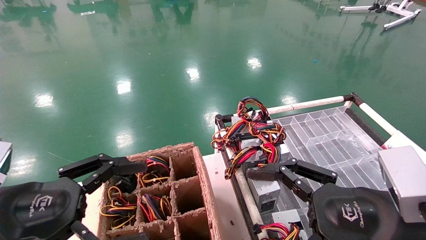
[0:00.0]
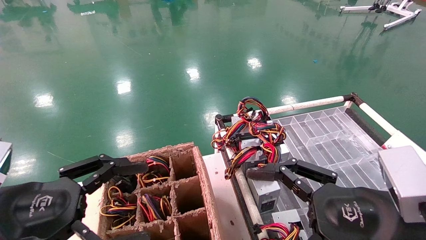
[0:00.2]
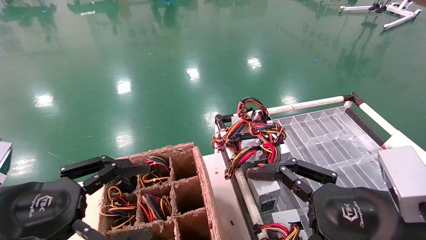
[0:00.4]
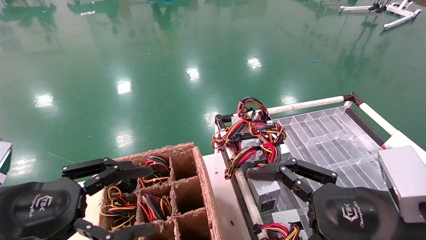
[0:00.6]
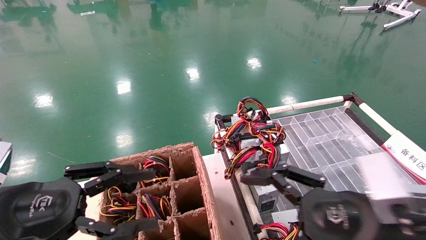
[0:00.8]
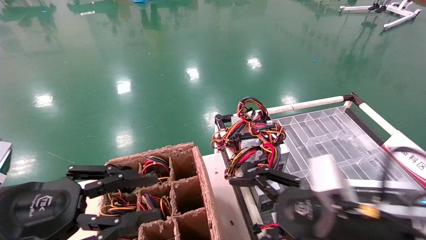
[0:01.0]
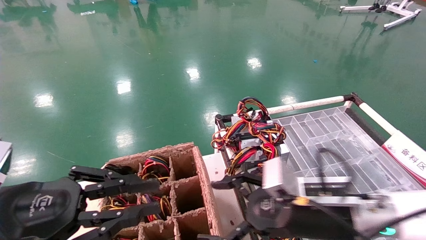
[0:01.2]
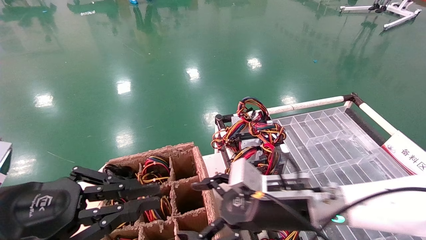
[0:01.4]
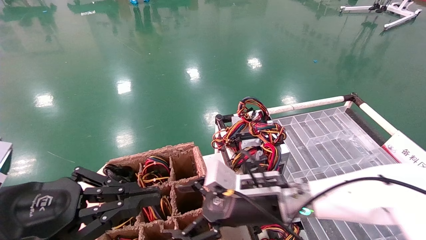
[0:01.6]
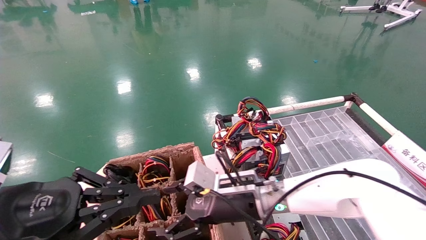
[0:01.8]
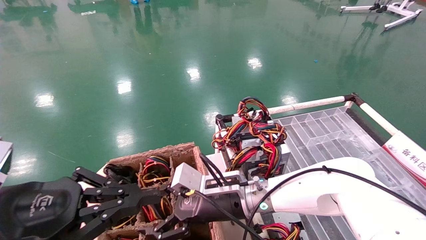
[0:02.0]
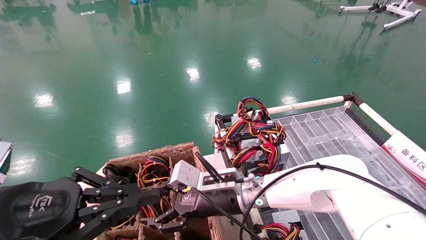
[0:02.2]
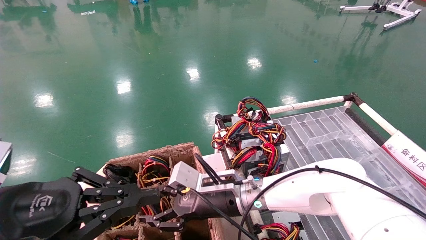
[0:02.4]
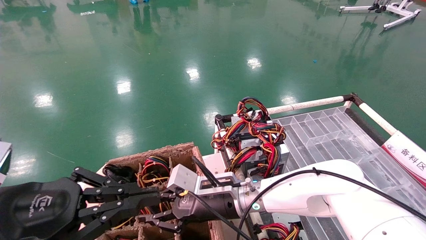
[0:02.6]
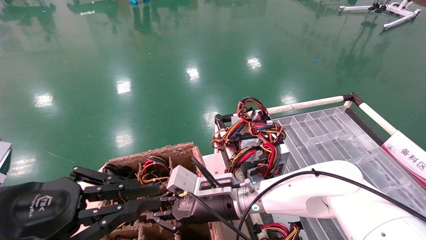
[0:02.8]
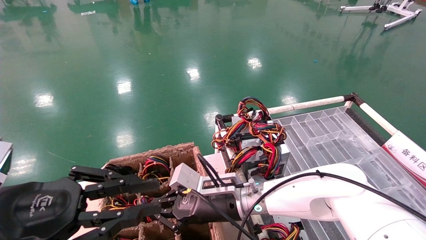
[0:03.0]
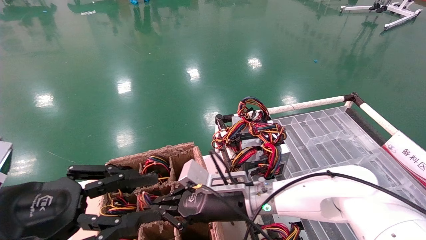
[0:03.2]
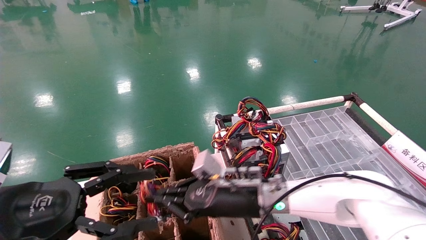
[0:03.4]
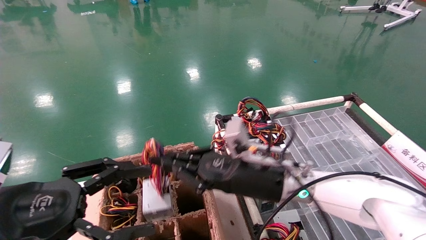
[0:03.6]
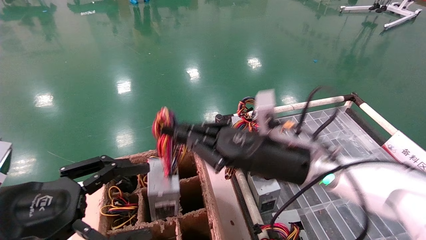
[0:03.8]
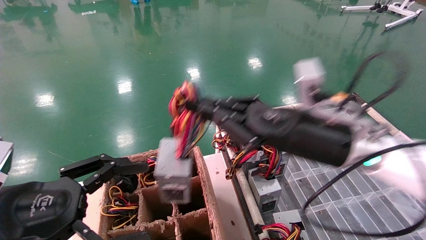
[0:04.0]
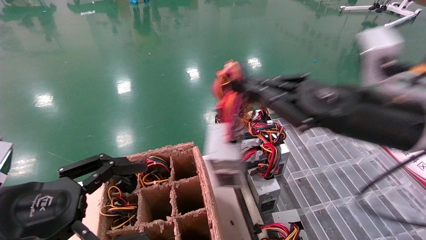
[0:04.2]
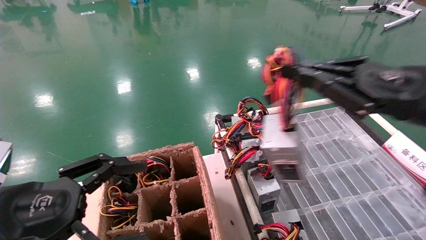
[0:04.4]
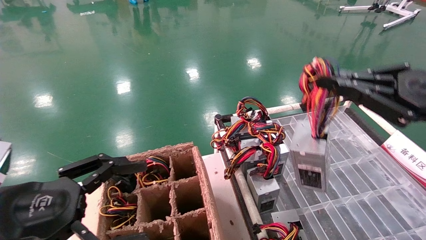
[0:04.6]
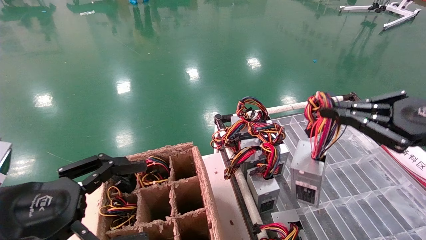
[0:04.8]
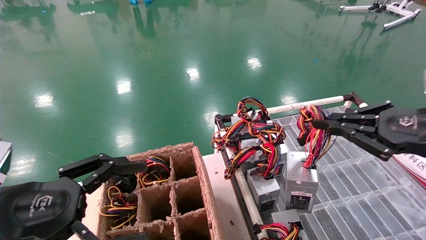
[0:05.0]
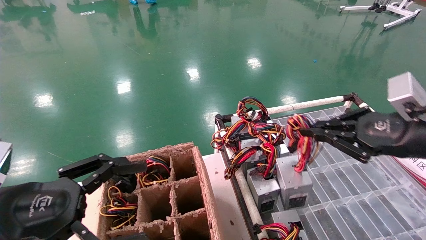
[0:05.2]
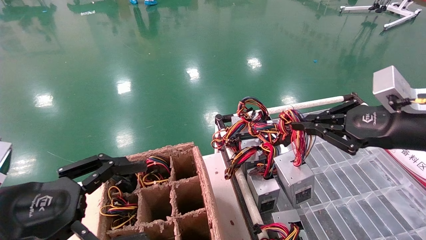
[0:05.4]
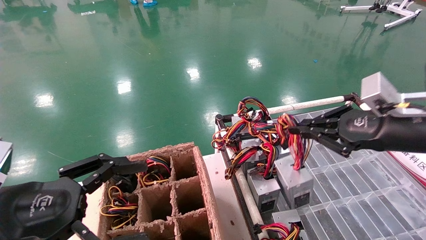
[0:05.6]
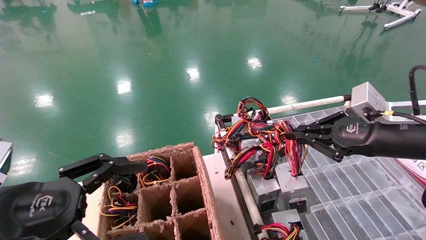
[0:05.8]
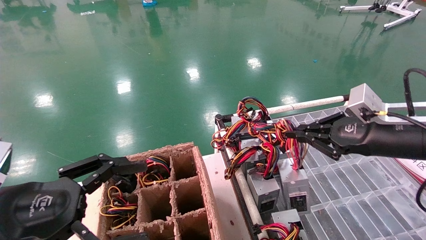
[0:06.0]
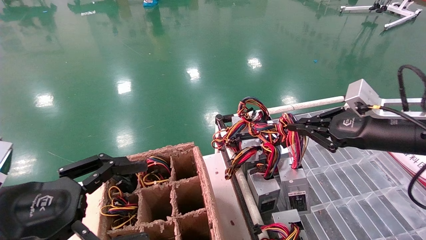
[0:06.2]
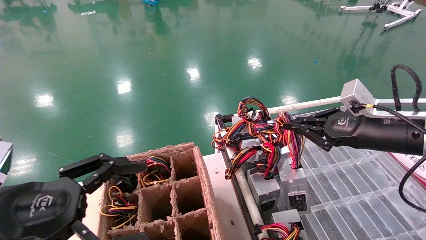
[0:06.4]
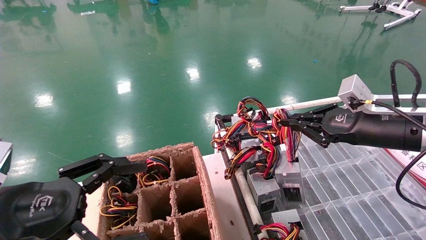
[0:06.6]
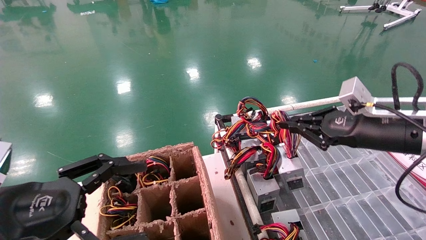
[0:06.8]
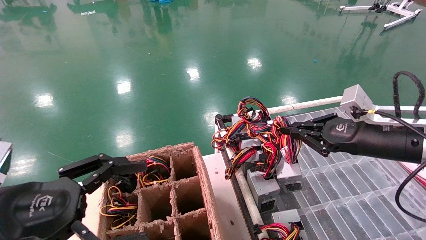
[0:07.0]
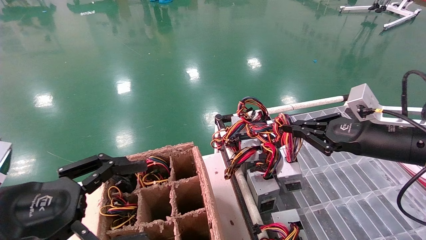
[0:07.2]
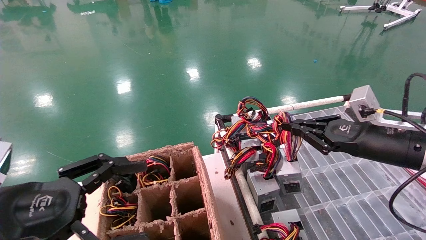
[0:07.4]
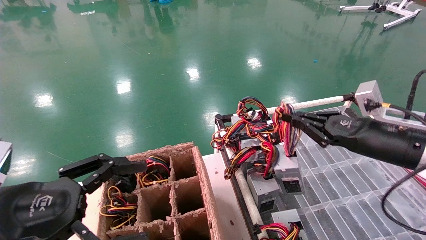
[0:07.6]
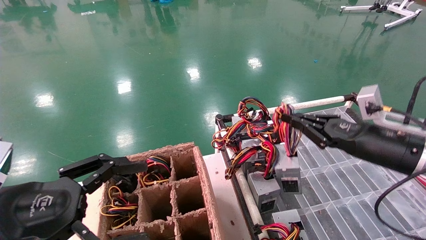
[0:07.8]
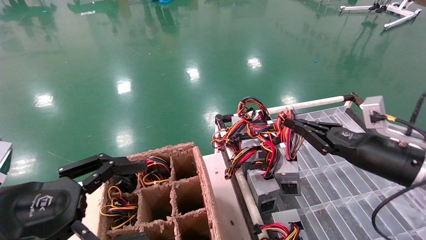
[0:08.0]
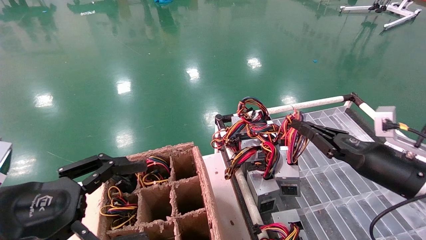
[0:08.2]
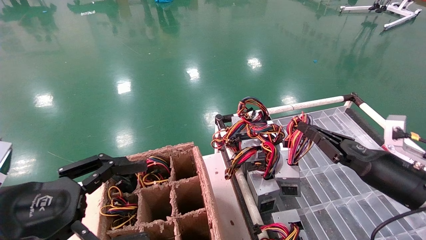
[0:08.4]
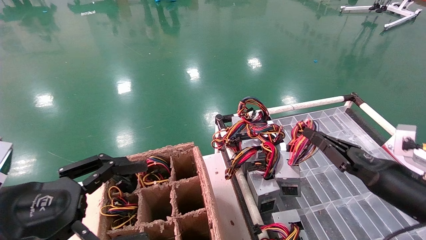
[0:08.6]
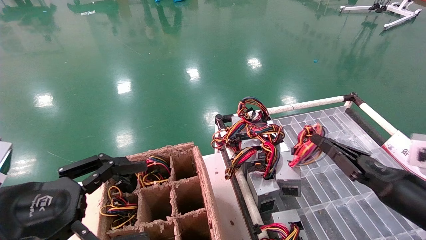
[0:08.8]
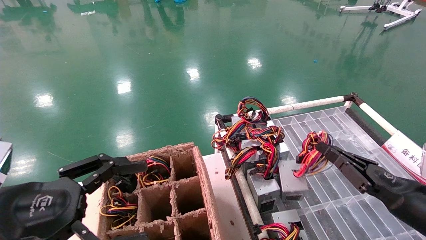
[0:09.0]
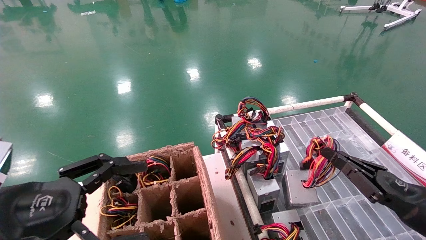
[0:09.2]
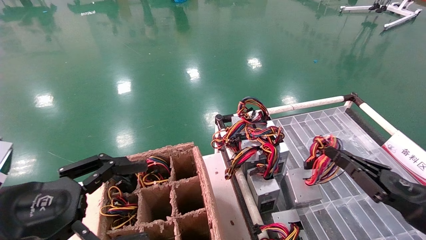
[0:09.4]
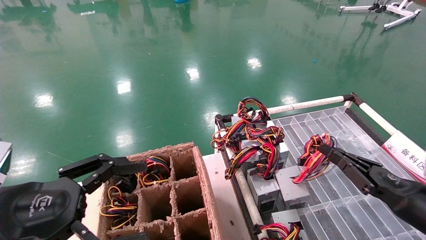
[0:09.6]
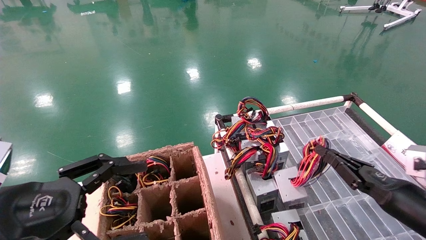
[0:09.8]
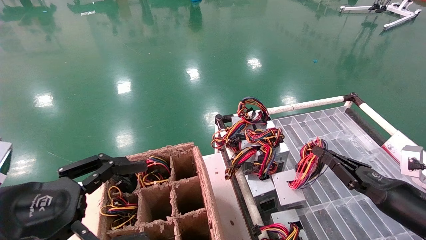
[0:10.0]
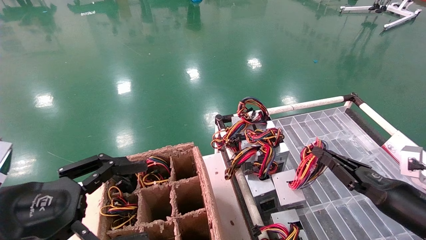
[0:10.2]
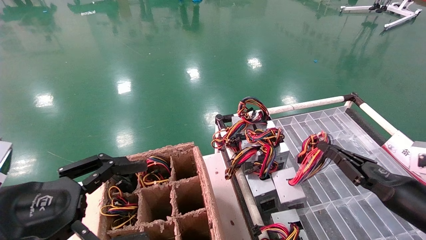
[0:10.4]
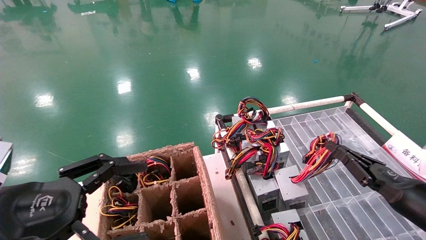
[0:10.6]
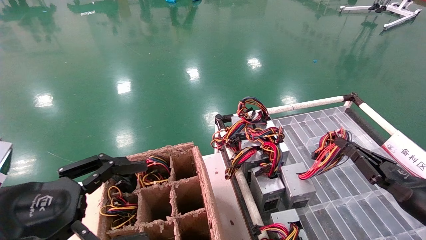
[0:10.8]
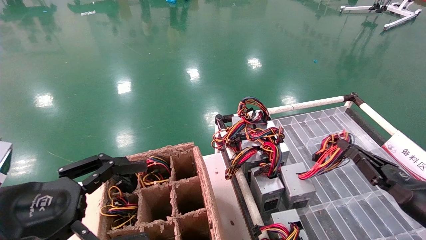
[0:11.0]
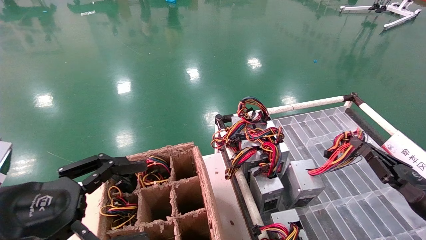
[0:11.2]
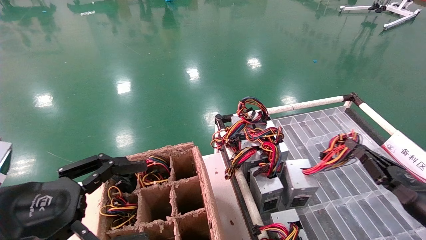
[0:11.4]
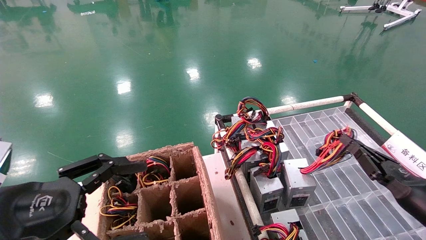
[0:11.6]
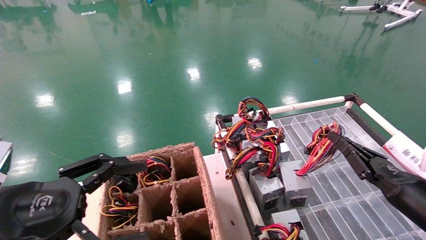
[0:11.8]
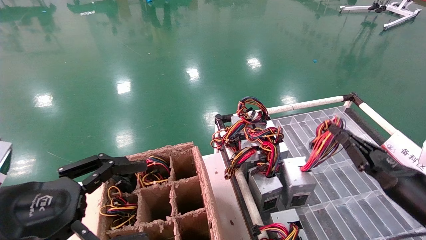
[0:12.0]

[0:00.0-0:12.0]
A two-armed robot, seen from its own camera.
Step, 0:01.0 to 0:03.0: Grab and lift the power supply from the large box.
0:00.0 to 0:01.6: The left gripper closes up, while the right gripper travels forward, to the left and downward by roughly 20 cm.
0:01.6 to 0:03.0: The right gripper shifts roughly 5 cm to the left, and closes.
0:03.0 to 0:04.4: The left gripper opens; the right gripper travels to the right, upward and backward by about 35 cm.
0:04.4 to 0:06.0: The right gripper is displaced forward by approximately 5 cm.
0:07.6 to 0:09.0: The right gripper moves downward and backward, approximately 15 cm.
0:09.0 to 0:12.0: The grippers move only a little.

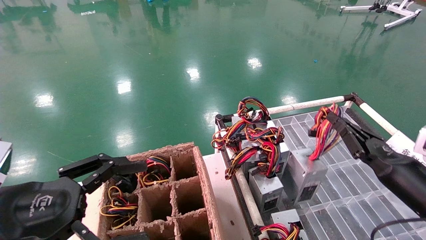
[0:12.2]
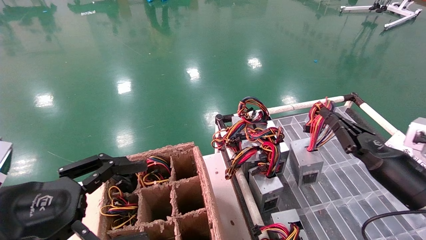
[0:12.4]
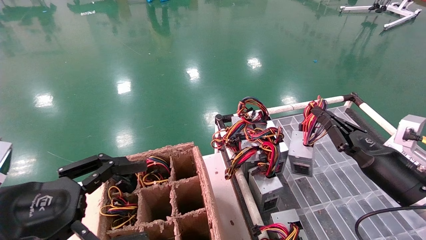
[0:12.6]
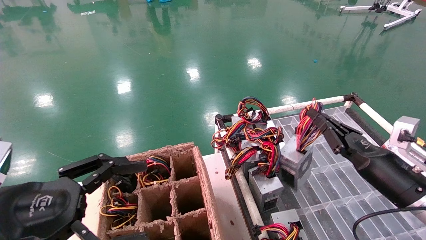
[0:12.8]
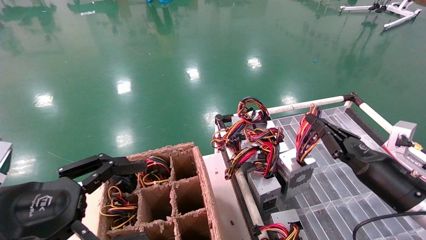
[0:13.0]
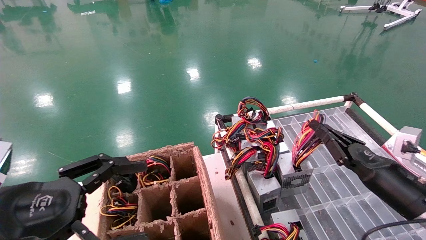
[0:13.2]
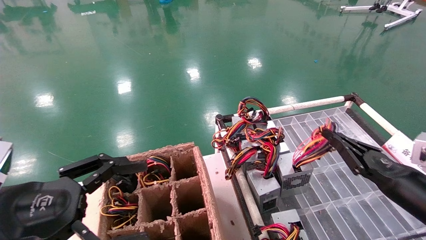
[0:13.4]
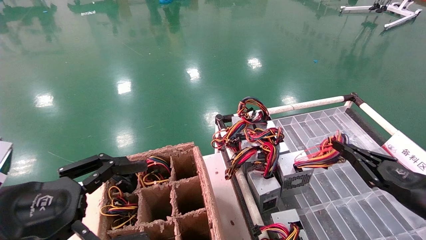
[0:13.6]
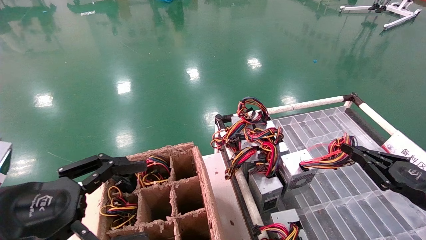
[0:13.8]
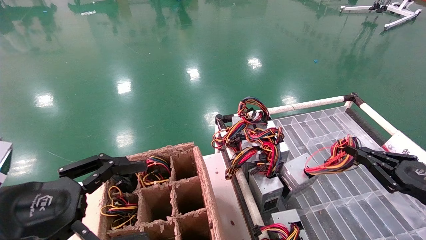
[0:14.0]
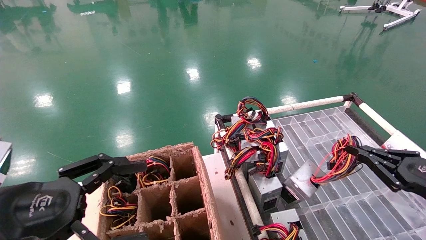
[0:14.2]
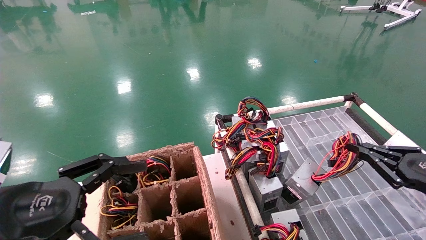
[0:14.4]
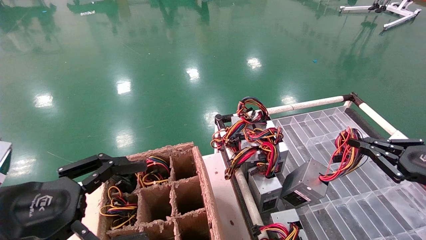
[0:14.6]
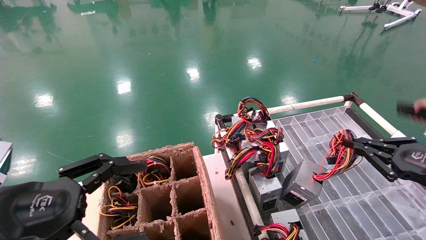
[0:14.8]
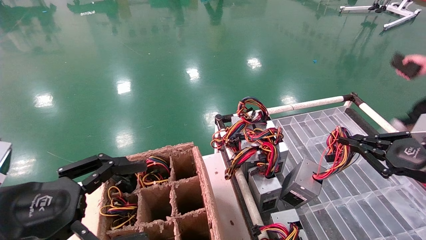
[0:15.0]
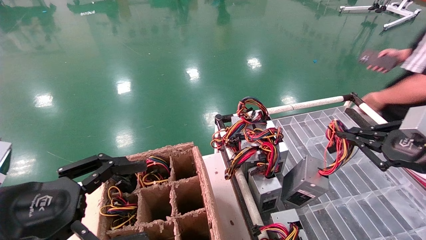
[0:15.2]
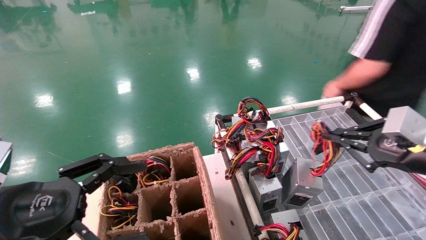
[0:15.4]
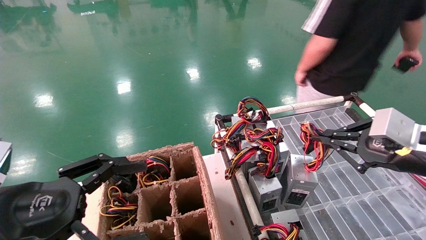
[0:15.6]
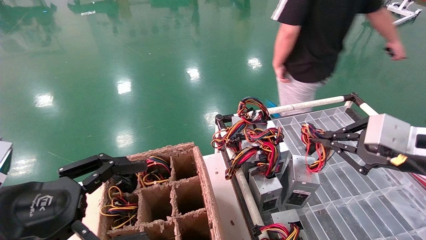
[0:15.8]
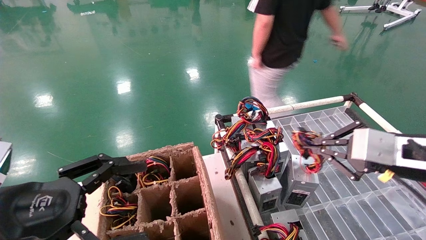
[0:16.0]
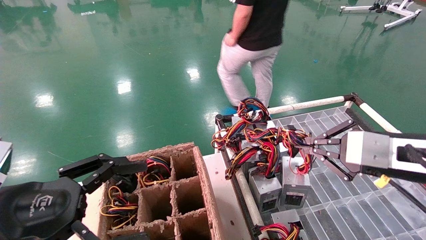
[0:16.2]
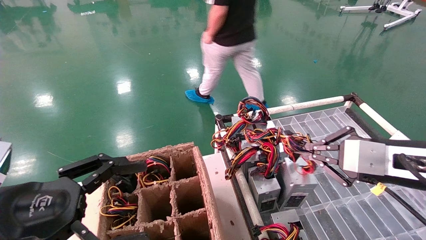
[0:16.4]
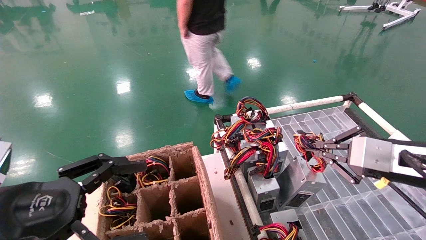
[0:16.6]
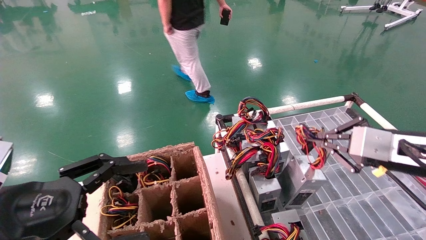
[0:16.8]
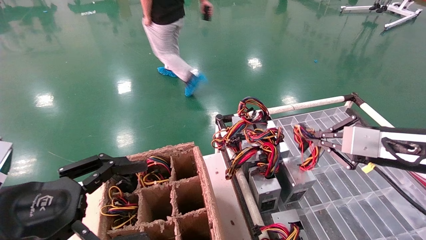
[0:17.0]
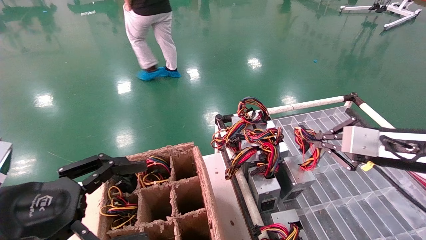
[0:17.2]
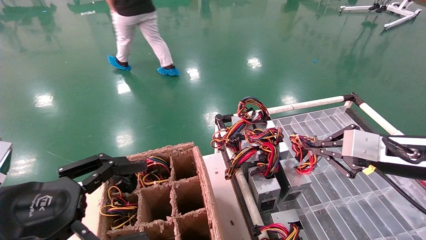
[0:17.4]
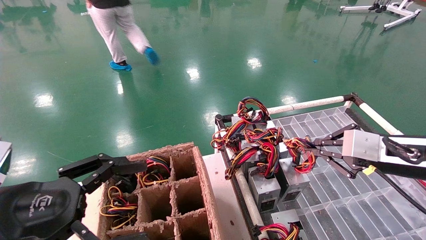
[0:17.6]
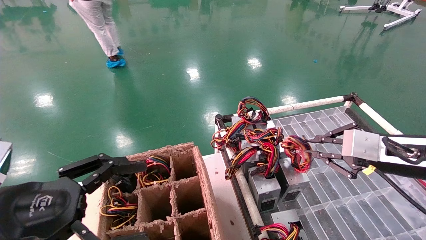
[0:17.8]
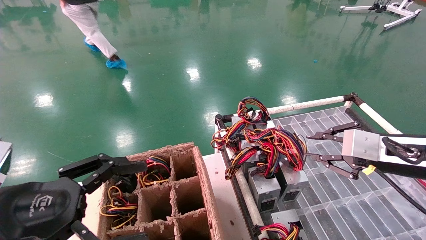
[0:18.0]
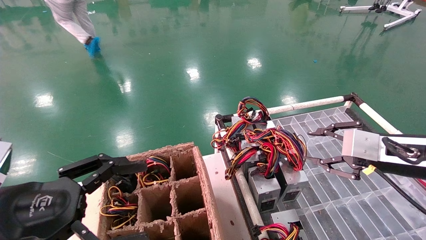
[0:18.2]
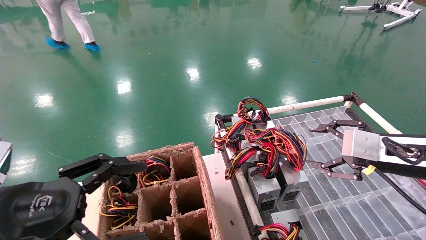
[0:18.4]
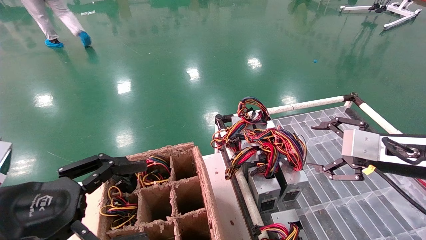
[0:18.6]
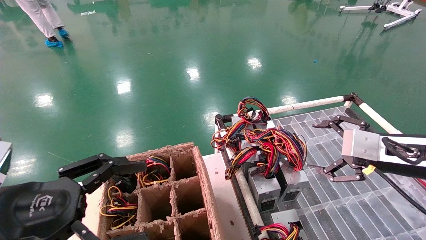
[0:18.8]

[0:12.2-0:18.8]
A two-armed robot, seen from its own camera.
Step, 0:12.2 to 0:17.8: Place the power supply on the operating table.
0:12.2 to 0:13.8: The right gripper heads to the right, covering some 5 cm.
0:13.8 to 0:15.4: The right gripper shifts about 15 cm upward and to the left.
0:17.2 to 0:18.8: The right gripper opens.
